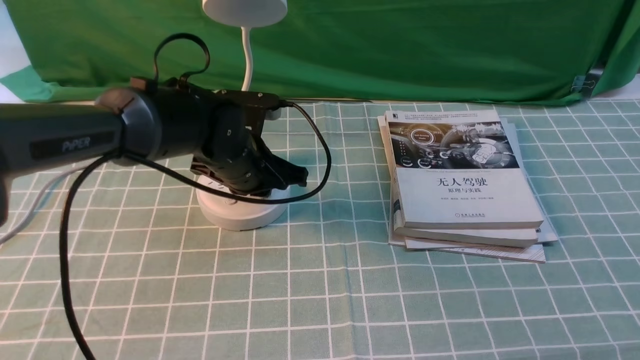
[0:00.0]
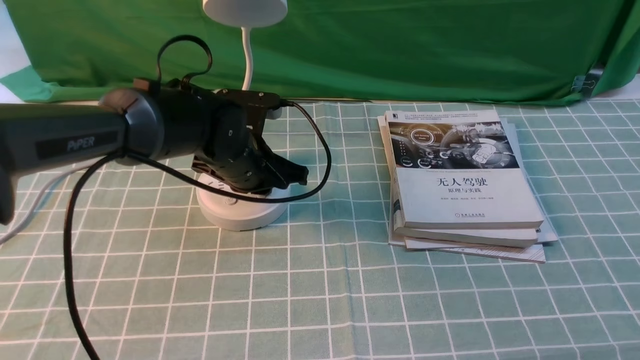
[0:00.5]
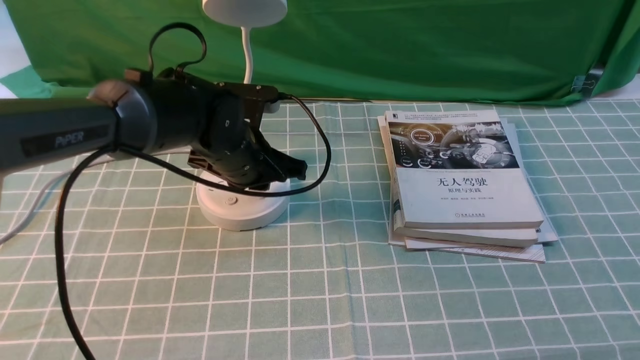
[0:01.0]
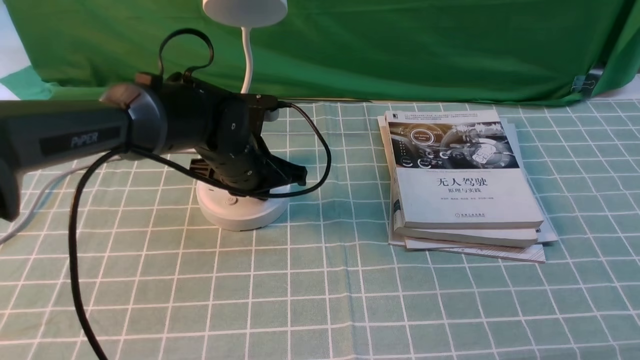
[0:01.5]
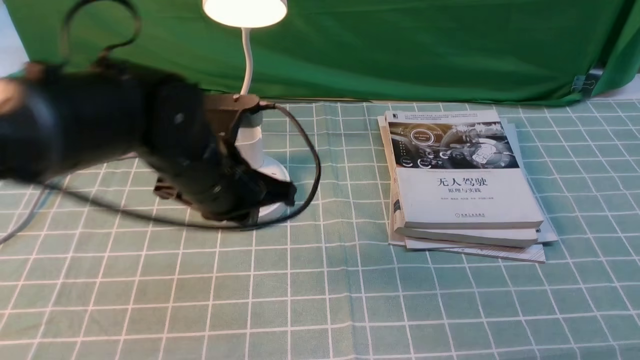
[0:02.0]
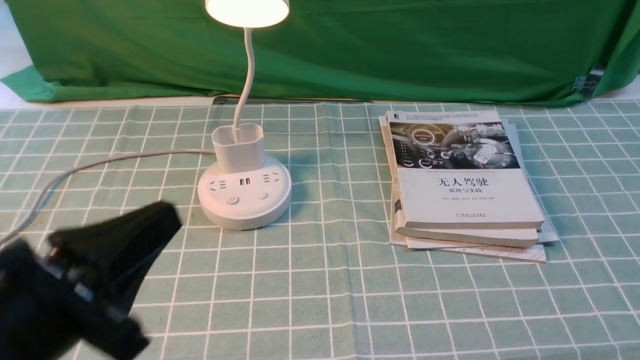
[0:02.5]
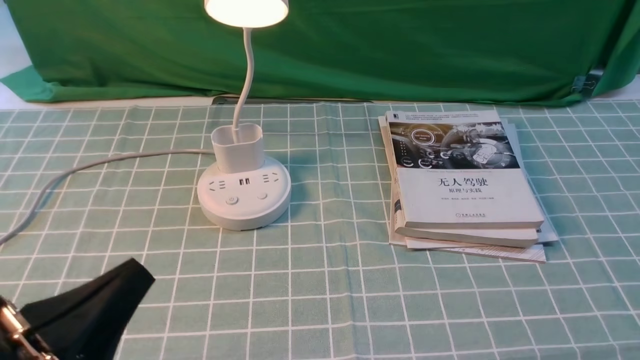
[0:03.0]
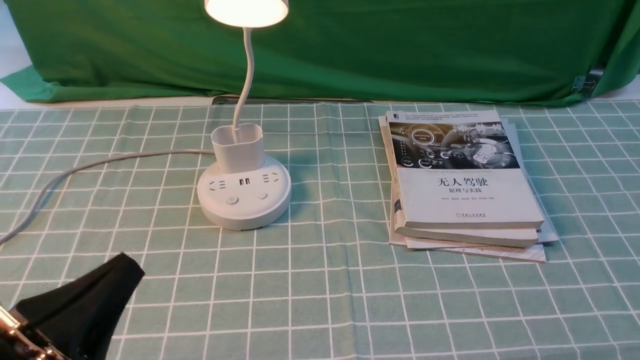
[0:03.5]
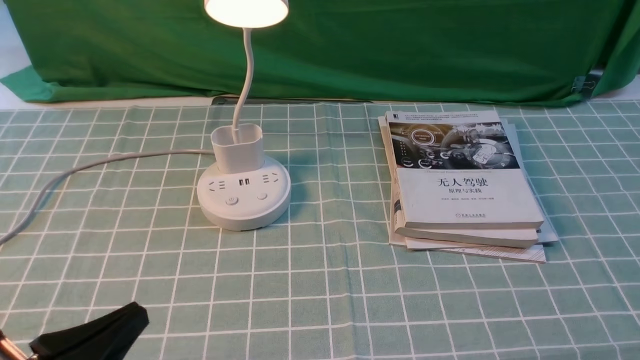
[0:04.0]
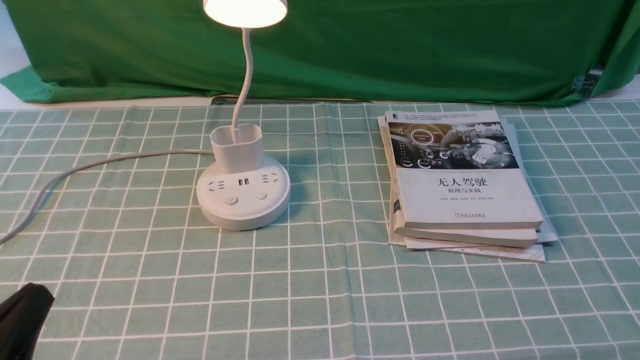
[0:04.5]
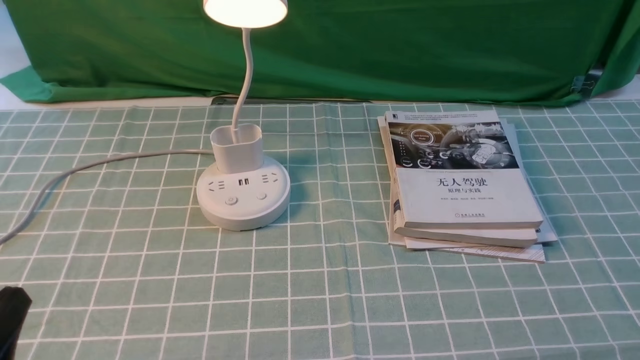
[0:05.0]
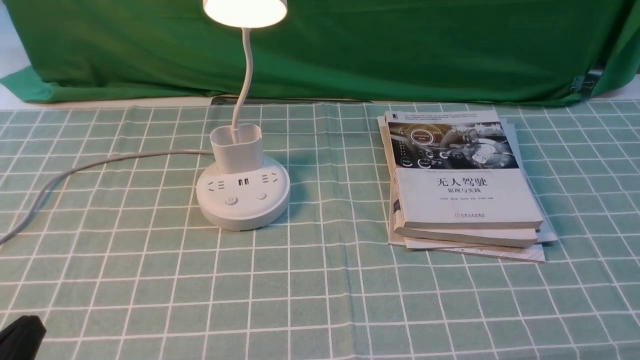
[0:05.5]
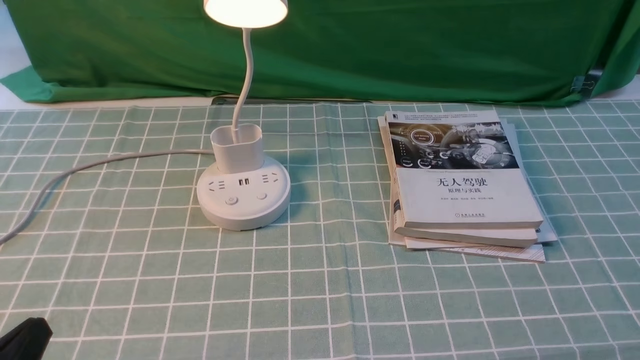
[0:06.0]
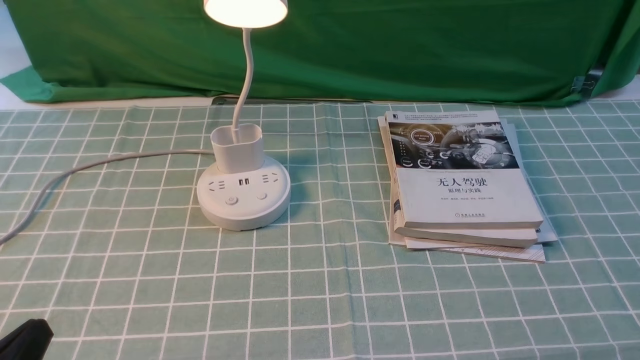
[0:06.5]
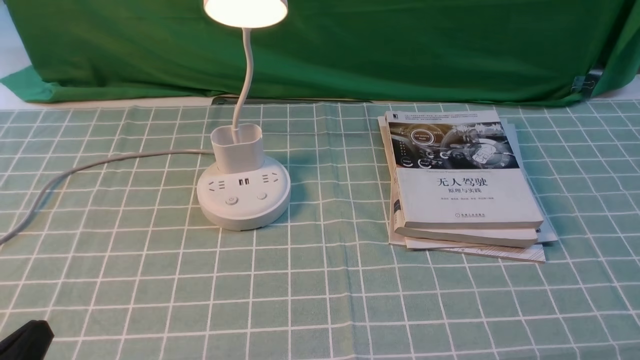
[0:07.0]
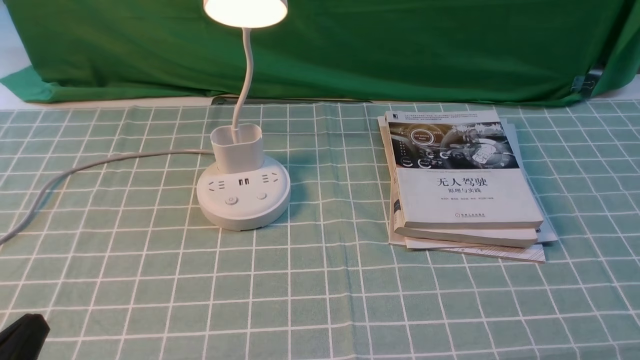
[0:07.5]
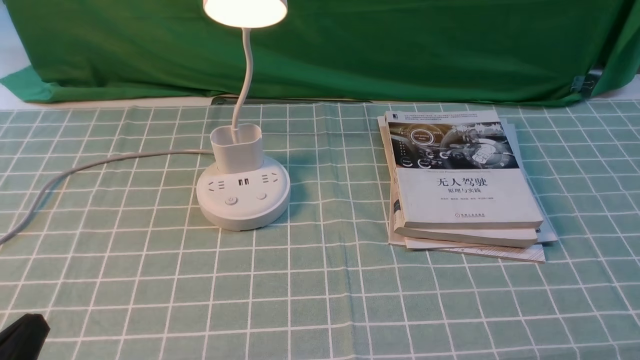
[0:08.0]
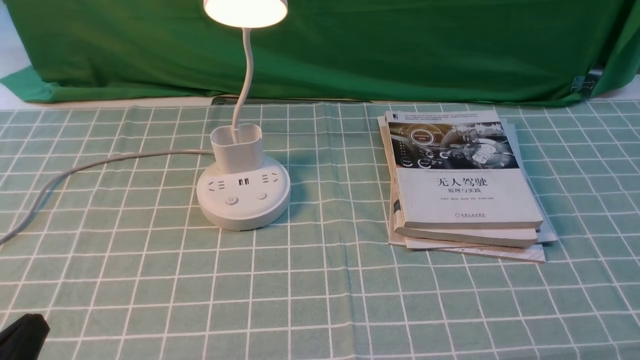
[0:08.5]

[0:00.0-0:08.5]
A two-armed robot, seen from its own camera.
0:00.0 to 0:02.0: The left gripper travels backward and upward by roughly 15 cm.
0:02.0 to 0:04.0: The left gripper is displaced backward and to the left by some 25 cm.
0:06.5 to 0:08.5: The two grippers keep their place.
